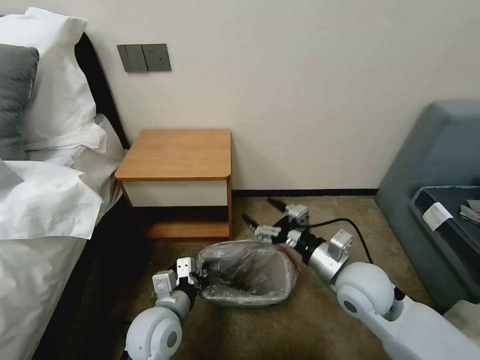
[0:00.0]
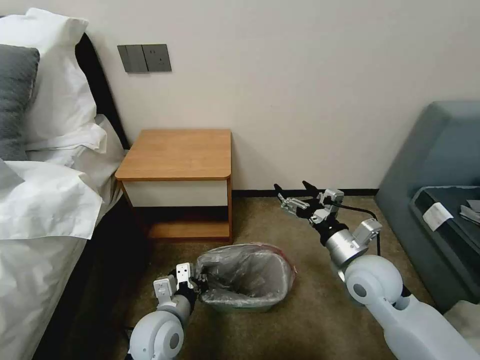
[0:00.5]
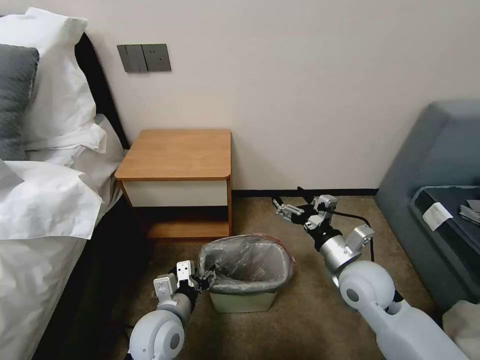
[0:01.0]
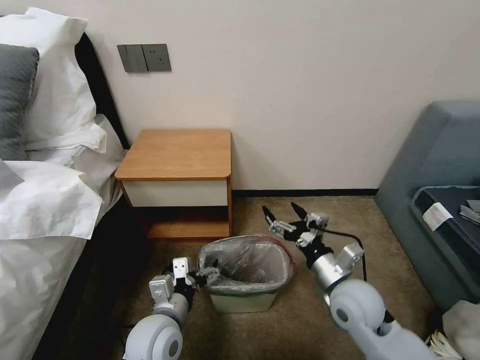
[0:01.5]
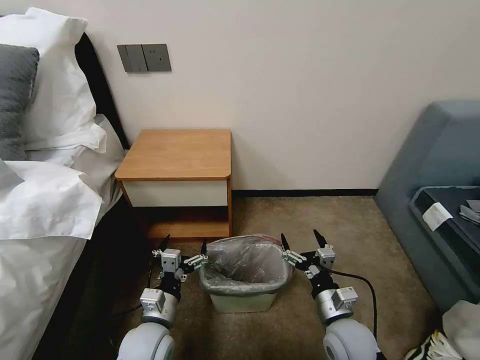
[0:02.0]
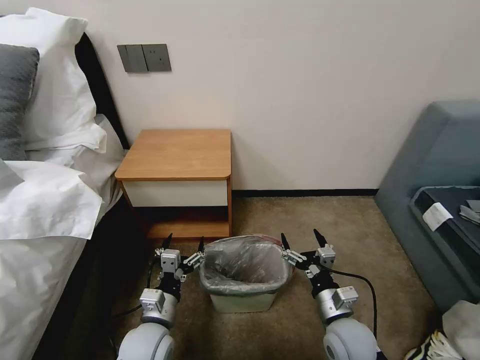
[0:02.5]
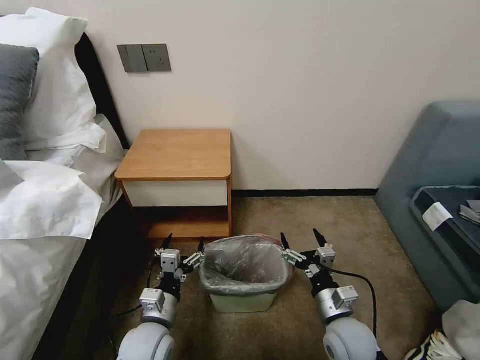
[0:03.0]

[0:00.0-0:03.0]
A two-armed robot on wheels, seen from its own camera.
Task of the whole recording: Pick up the garbage bag from the table and place it over the trash can.
0:00.0 to 0:01.5: The left gripper opens.
0:01.5 to 0:03.0: The right gripper heads downward, covering approximately 10 cm. Meanwhile the left gripper is displaced downward by roughly 5 cm.

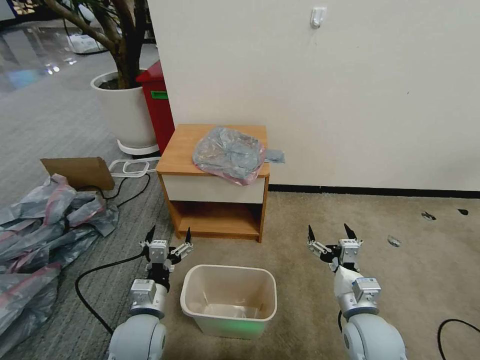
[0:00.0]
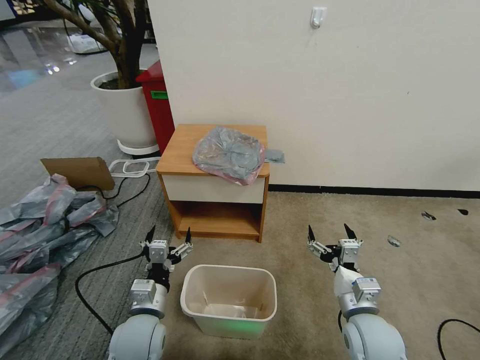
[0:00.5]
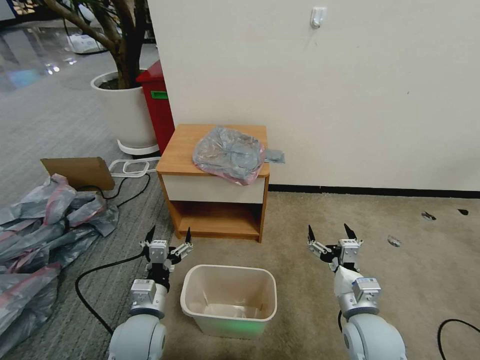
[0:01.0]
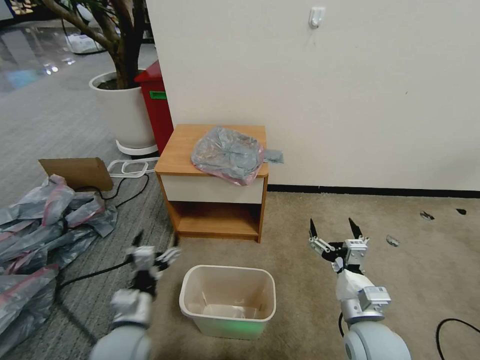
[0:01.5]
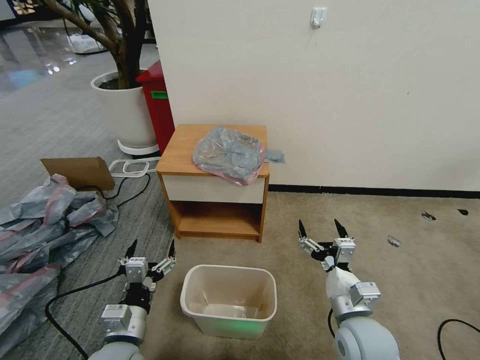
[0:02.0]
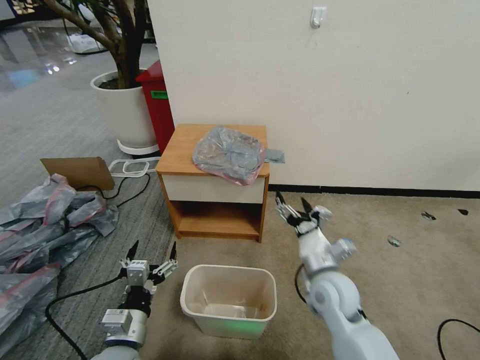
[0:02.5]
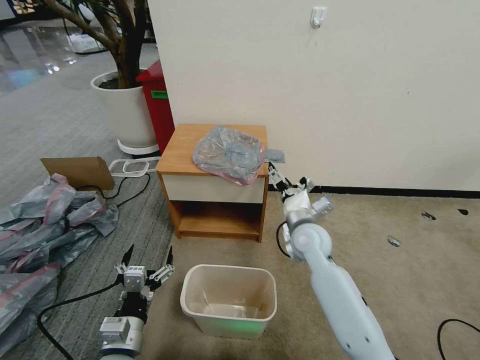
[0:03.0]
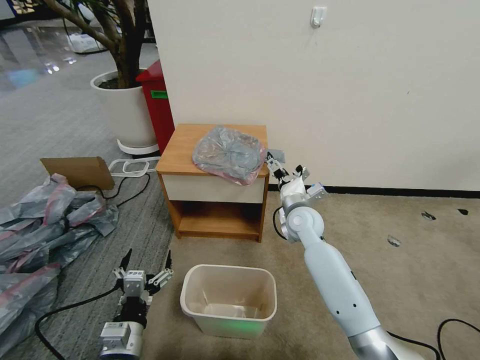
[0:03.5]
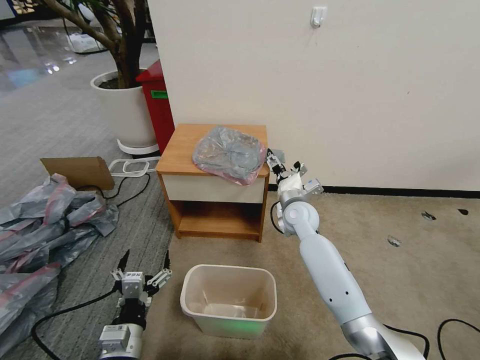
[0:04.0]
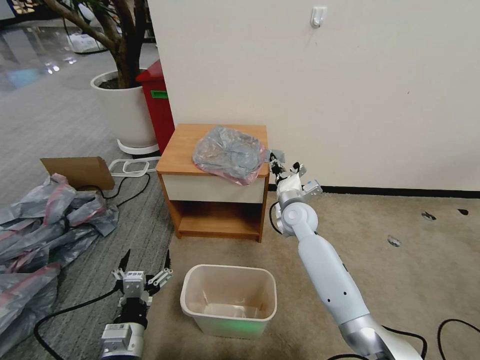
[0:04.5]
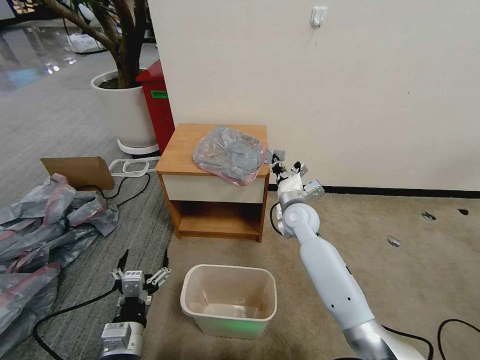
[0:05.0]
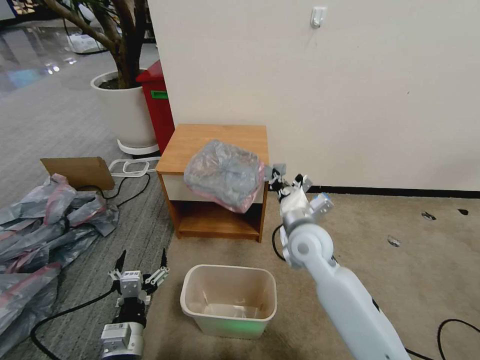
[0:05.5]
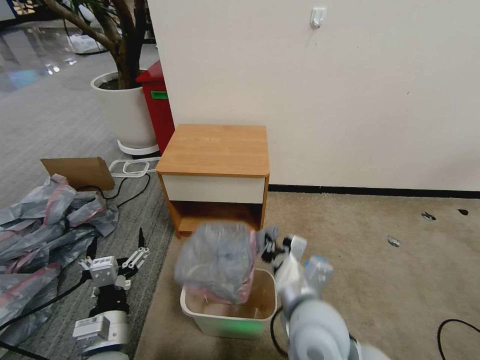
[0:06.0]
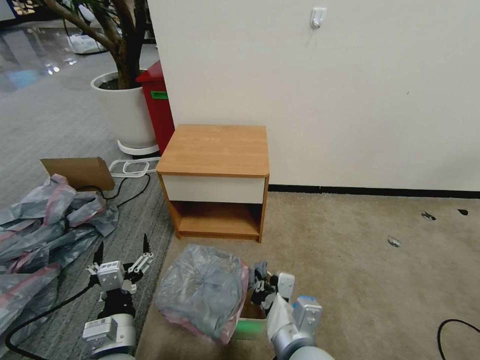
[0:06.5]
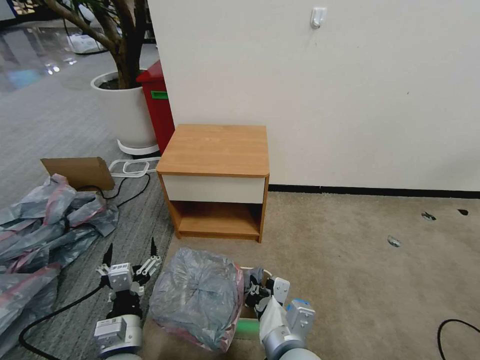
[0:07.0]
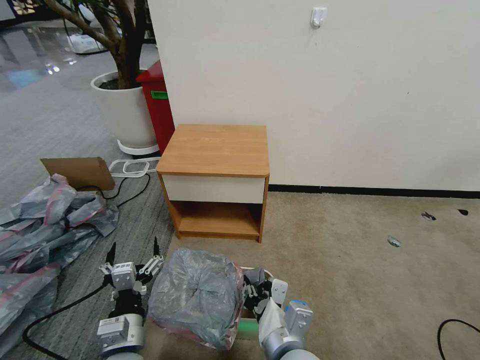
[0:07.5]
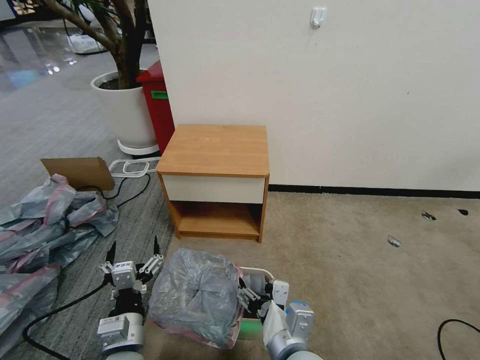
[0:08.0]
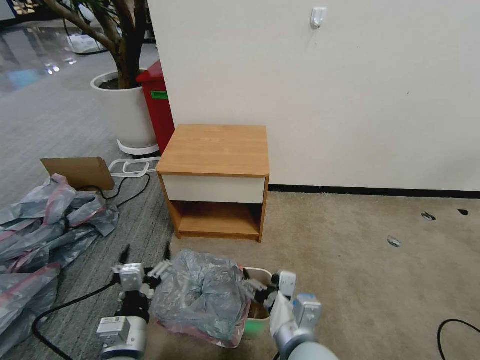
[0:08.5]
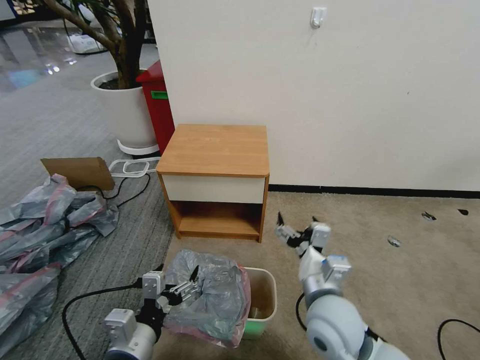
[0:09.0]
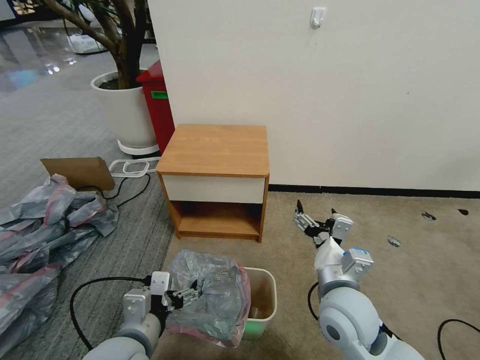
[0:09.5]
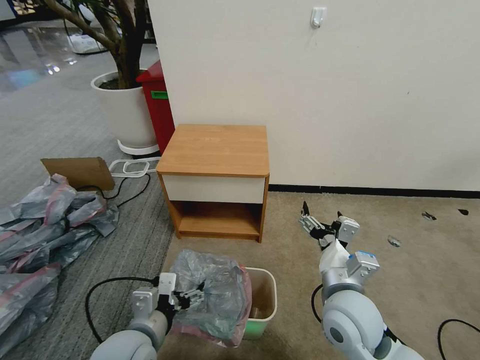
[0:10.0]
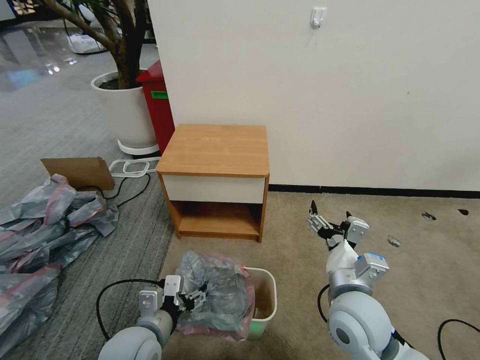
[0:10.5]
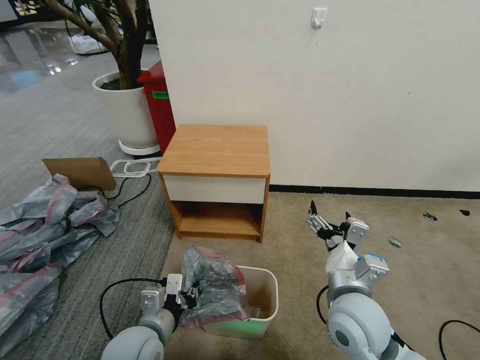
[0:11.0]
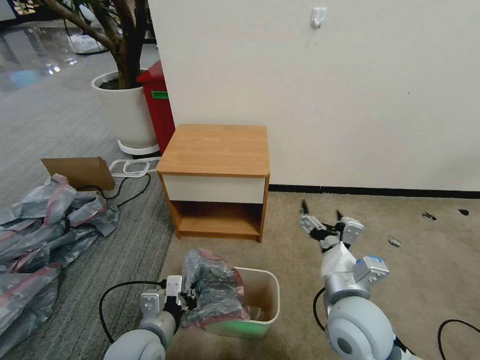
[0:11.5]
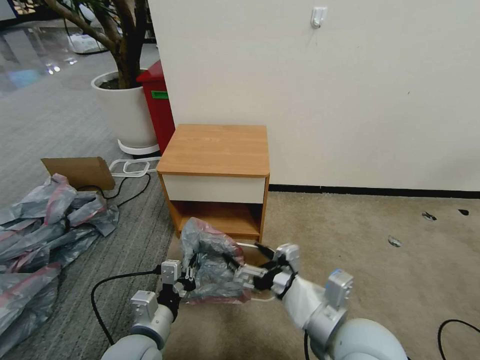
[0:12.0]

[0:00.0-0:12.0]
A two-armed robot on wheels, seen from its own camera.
Task of the whole recording: Pick up the garbage bag from the table and place it over the trash can.
0:02.0 to 0:04.0: The right gripper shifts roughly 30 cm forward.
0:04.0 to 0:06.0: The right gripper travels backward by about 30 cm, and closes its fingers.
0:06.0 to 0:08.0: The right gripper travels backward by some 5 cm, and opens its fingers.
0:08.0 to 0:10.0: The right gripper is displaced forward and to the right by some 15 cm; the left gripper ends up some 5 cm from where it was.
0:10.0 to 0:12.0: The left gripper closes its fingers, while the right gripper goes approximately 10 cm backward and upward.

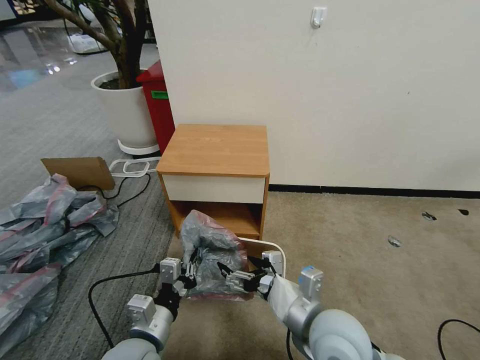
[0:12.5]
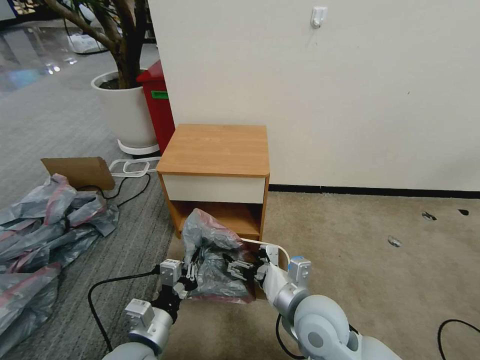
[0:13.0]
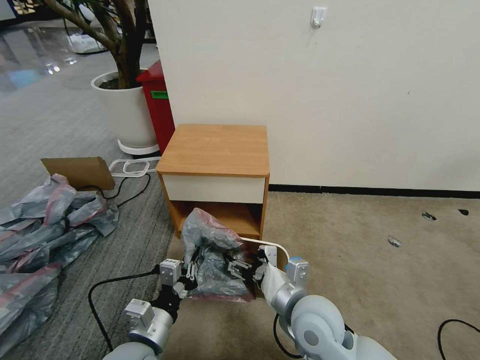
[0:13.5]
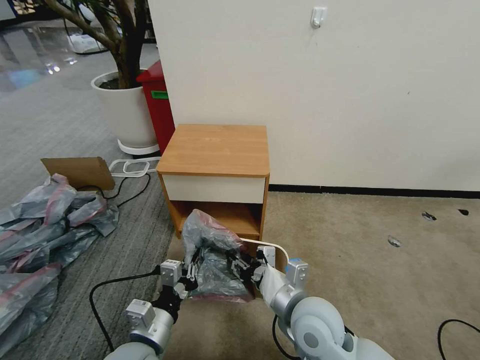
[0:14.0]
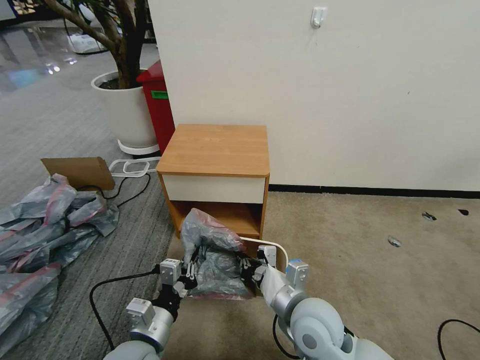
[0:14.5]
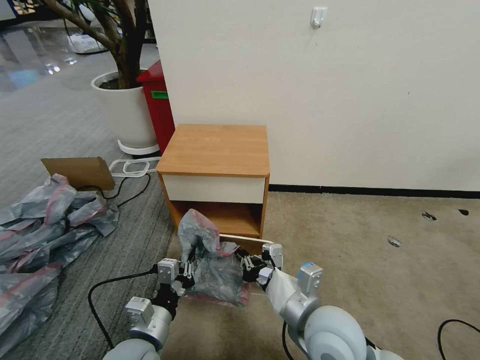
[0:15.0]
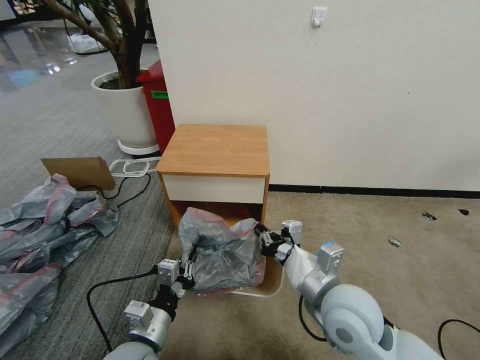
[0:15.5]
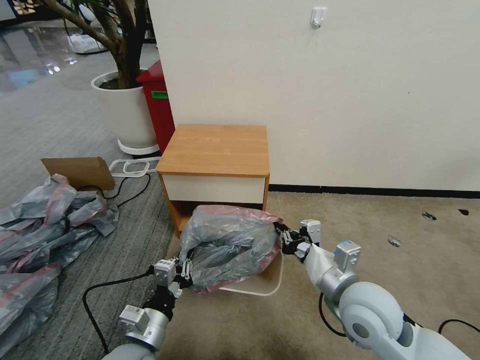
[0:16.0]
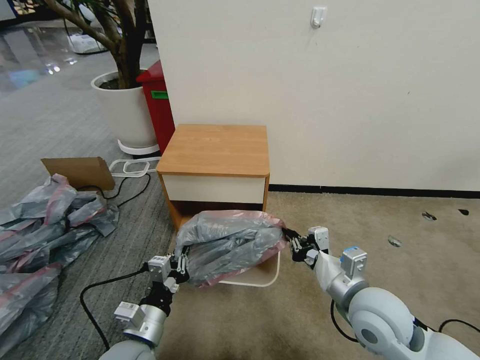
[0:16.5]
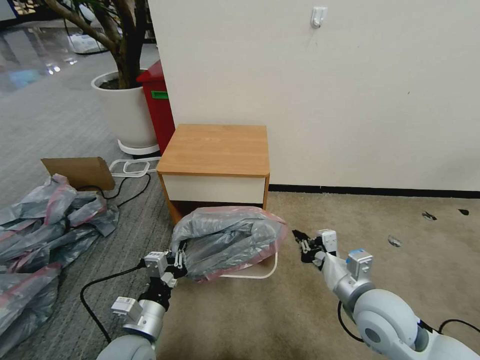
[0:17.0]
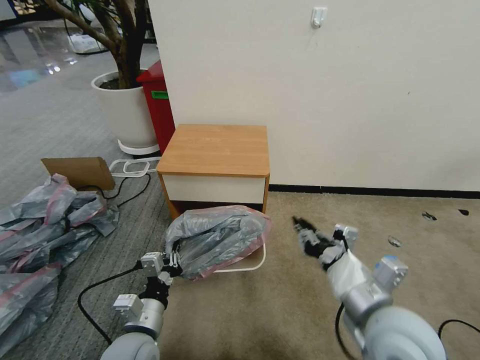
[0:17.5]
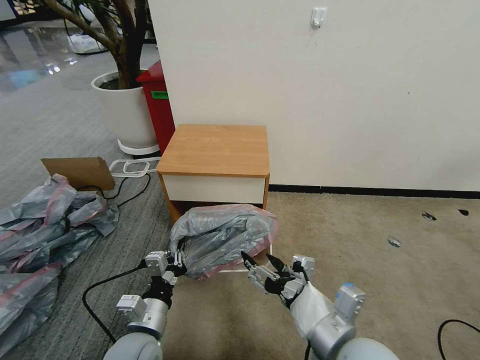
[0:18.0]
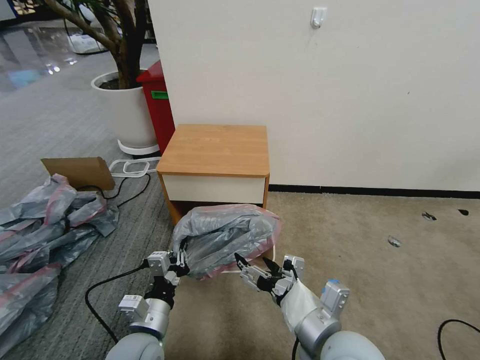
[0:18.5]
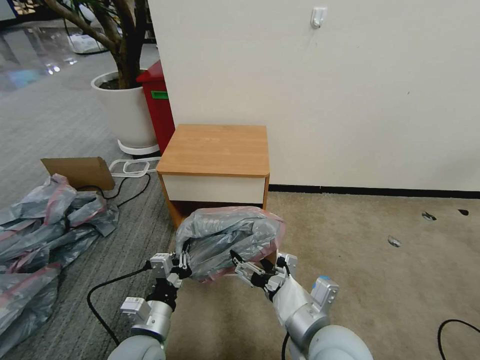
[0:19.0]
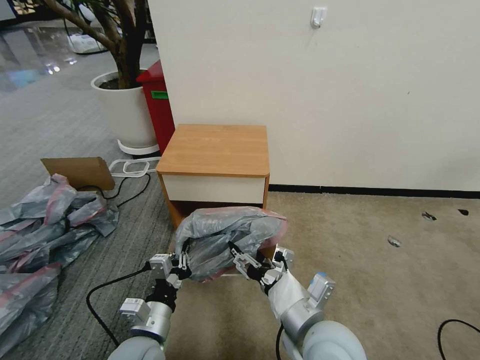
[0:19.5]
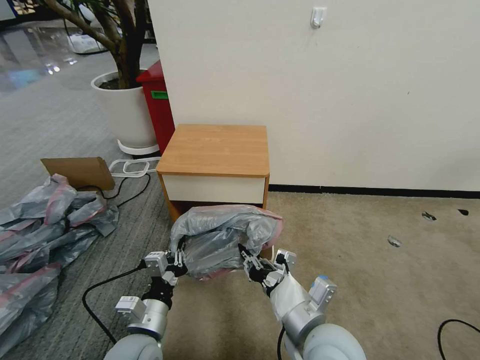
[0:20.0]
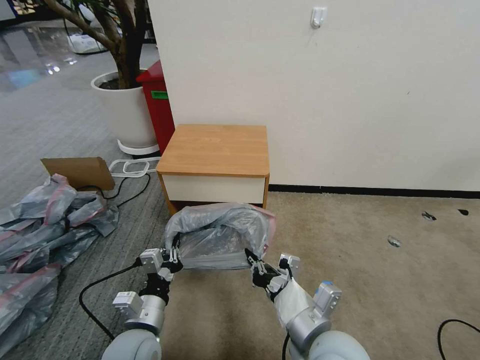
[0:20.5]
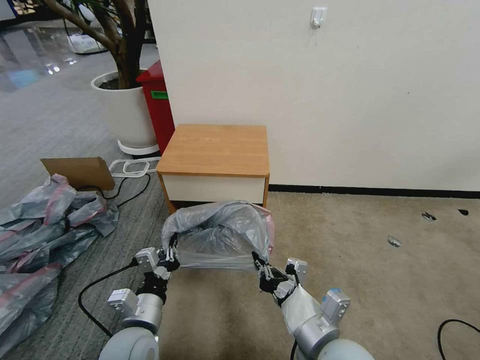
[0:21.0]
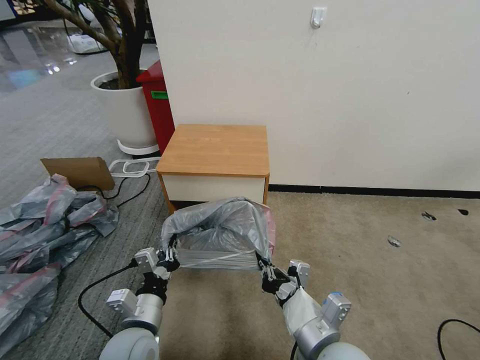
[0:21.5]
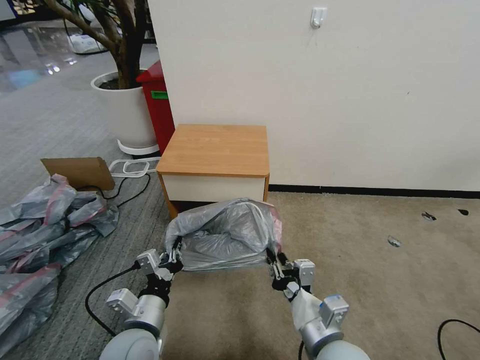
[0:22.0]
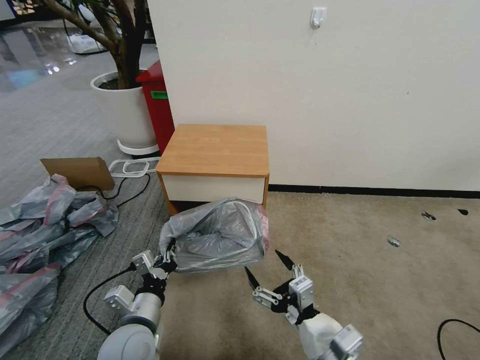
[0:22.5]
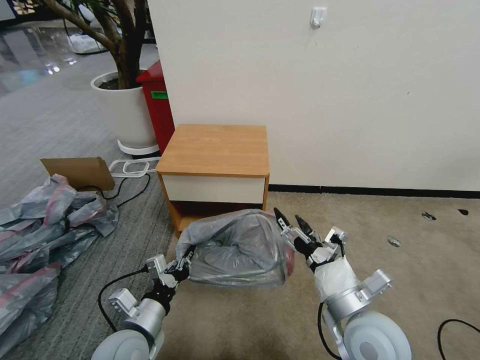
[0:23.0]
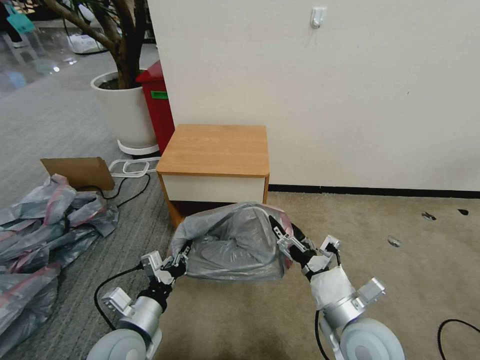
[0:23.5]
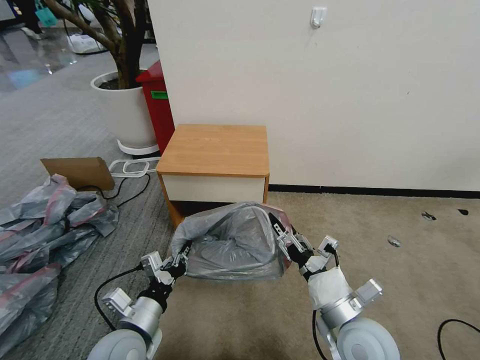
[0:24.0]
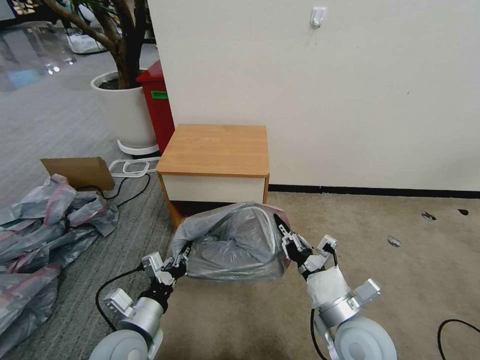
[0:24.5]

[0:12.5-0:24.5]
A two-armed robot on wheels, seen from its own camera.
Task of the whole recording: Pick up the garbage bag from the table and place it over the trash can.
0:12.5 to 0:14.5: The right gripper ends up about 5 cm from where it was, and closes.
0:14.5 to 0:16.5: The right gripper travels to the right by some 10 cm.
0:16.5 to 0:18.5: The right gripper is displaced to the left and backward by some 10 cm, and opens its fingers.
0:18.5 to 0:20.5: The right gripper closes its fingers.
0:20.5 to 0:22.5: The right gripper ends up some 5 cm from where it was, and opens.
0:22.5 to 0:24.5: The right gripper shifts roughly 5 cm forward, and closes its fingers.
